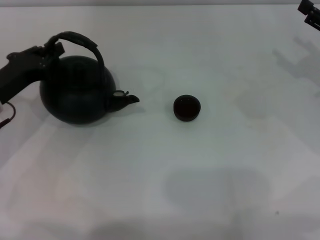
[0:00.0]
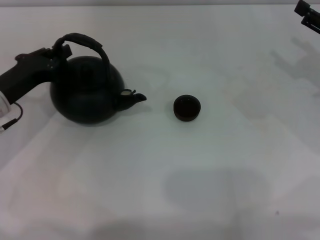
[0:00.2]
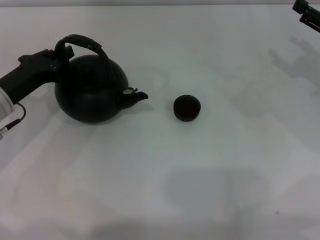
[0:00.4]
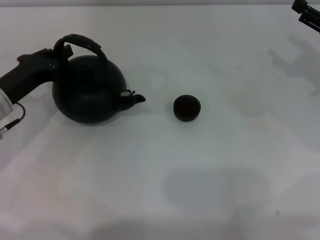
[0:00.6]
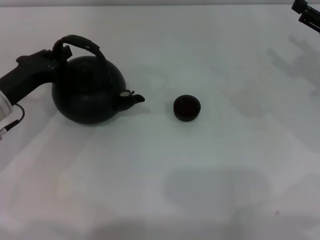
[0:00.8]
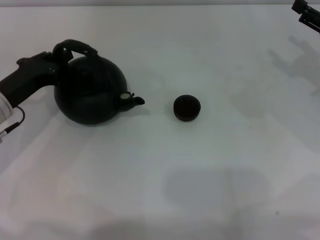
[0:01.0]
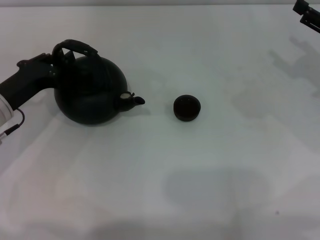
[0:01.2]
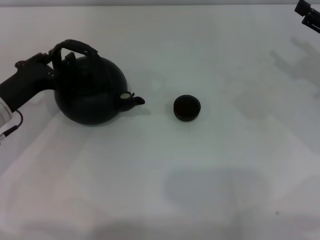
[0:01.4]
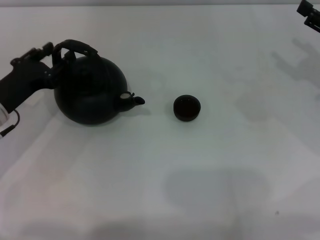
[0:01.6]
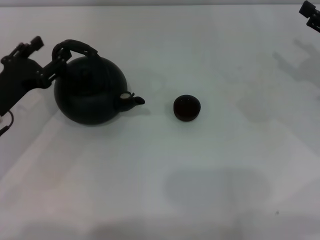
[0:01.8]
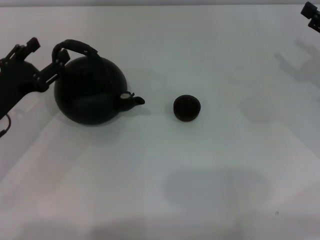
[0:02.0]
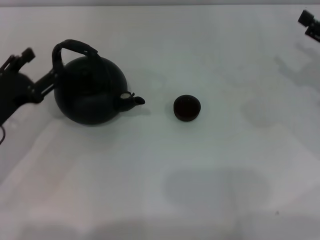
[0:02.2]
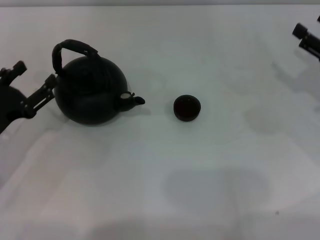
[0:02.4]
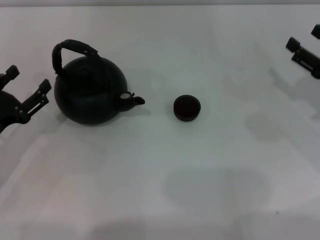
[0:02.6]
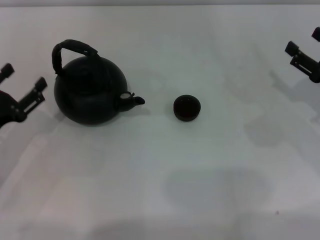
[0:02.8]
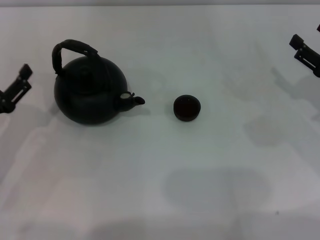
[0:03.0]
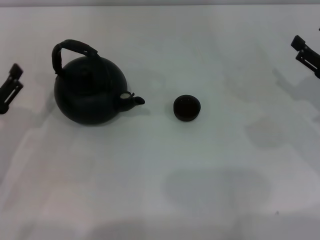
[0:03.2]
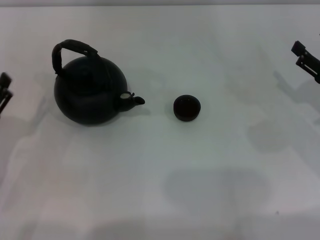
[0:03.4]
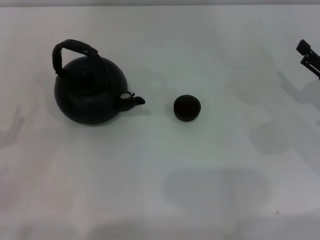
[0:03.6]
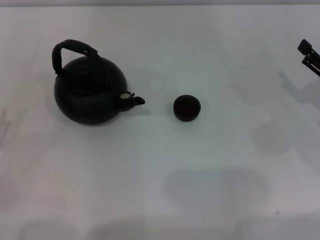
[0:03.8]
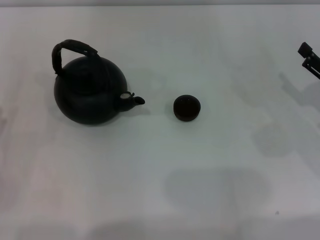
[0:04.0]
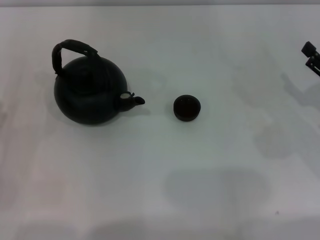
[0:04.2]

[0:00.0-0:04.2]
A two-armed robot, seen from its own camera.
Task of the whole recording: Grasp the handle of the teapot with one hand and pour tea into the teacup.
Step, 0:00.0 to 0:02.4: Put down the teapot with the left gripper.
0:00.0 to 0:01.4: There are only small adjustments of the grippers.
0:01.4 to 0:02.8: The right gripper ends up about 5 cm from where it was; the left gripper shifts about 5 cm backward, and opens up.
0:02.8 to 0:04.2: The left gripper moves some 5 cm.
